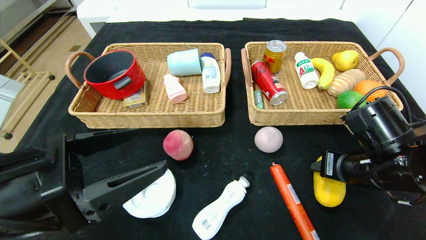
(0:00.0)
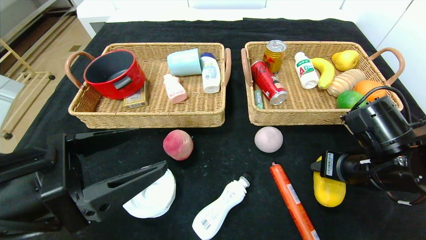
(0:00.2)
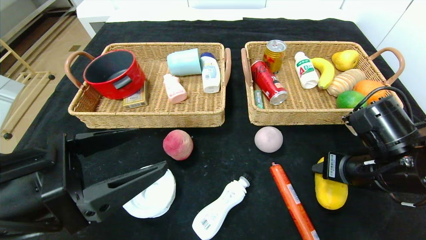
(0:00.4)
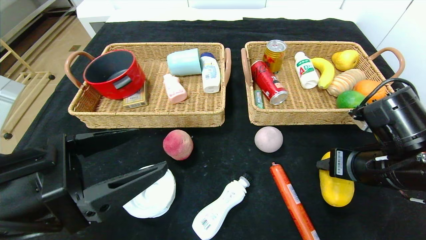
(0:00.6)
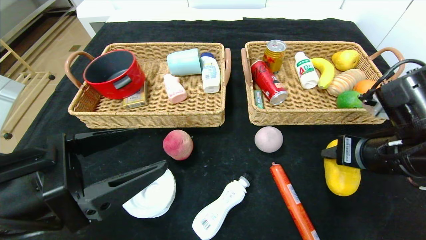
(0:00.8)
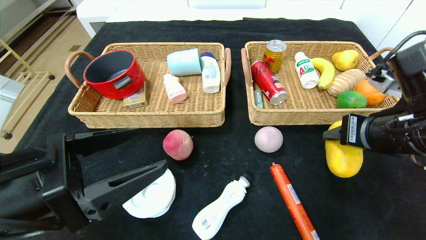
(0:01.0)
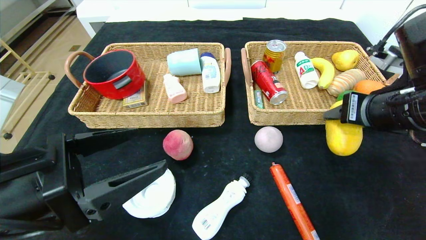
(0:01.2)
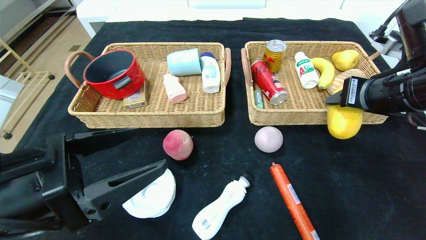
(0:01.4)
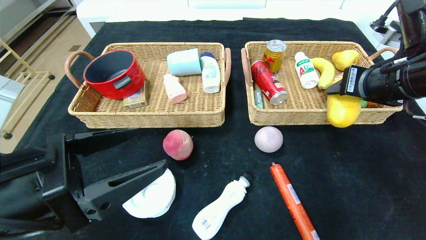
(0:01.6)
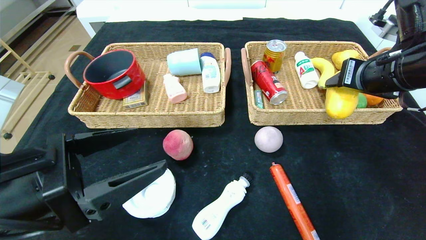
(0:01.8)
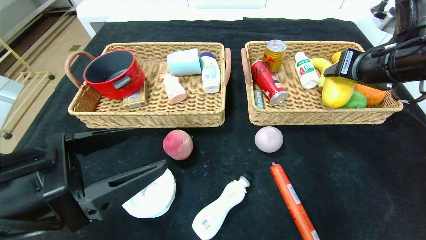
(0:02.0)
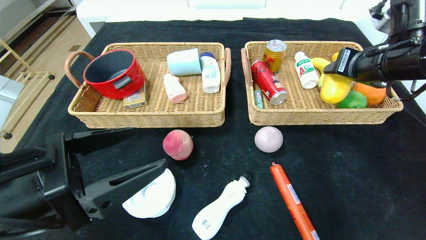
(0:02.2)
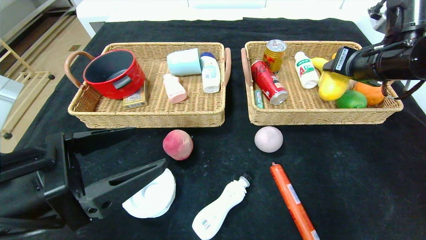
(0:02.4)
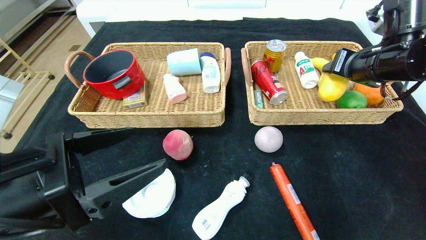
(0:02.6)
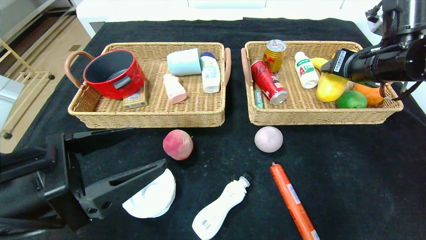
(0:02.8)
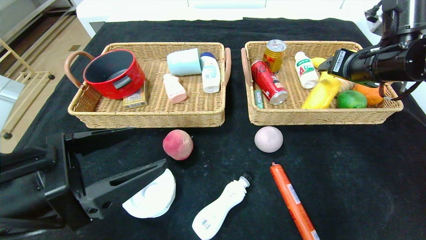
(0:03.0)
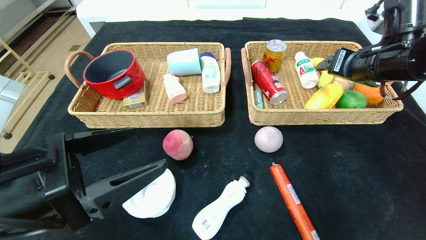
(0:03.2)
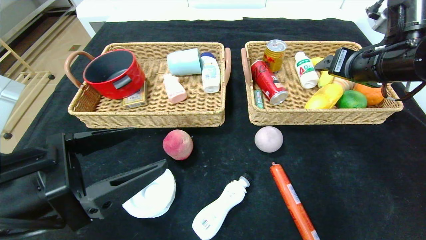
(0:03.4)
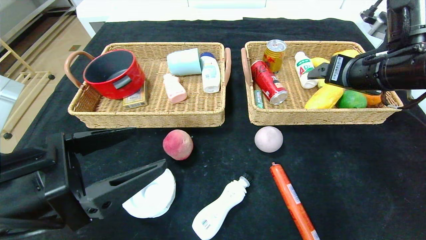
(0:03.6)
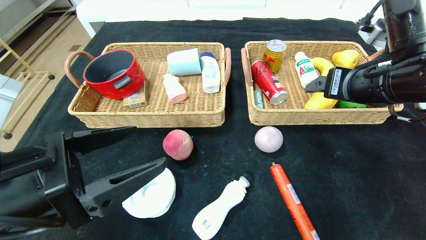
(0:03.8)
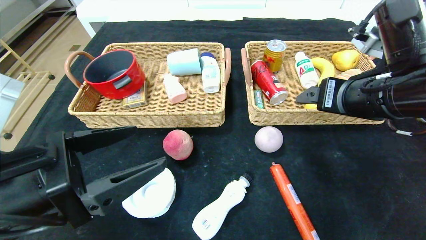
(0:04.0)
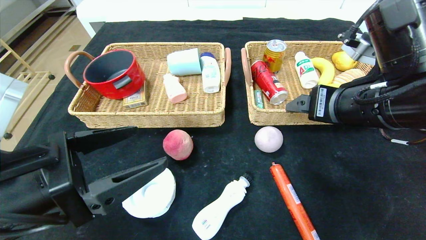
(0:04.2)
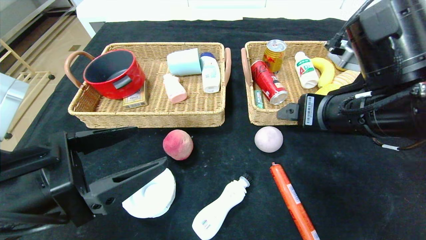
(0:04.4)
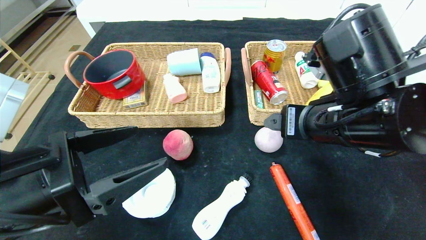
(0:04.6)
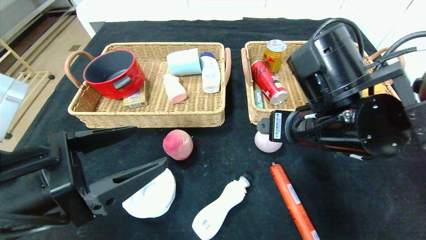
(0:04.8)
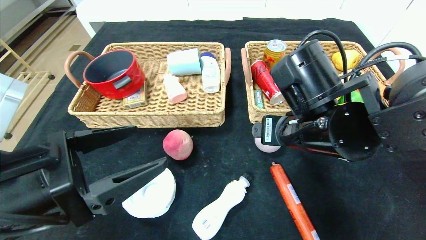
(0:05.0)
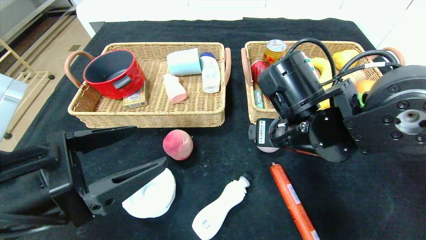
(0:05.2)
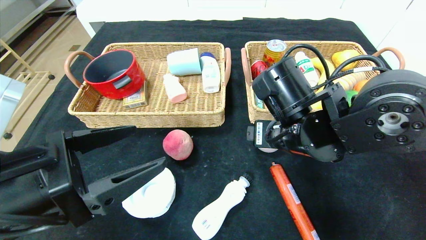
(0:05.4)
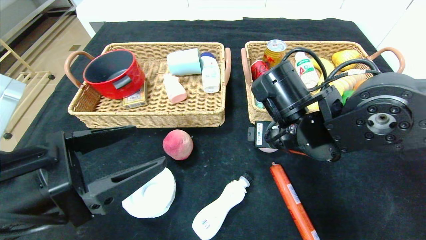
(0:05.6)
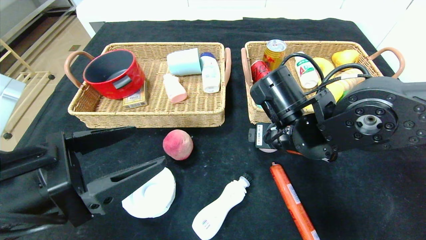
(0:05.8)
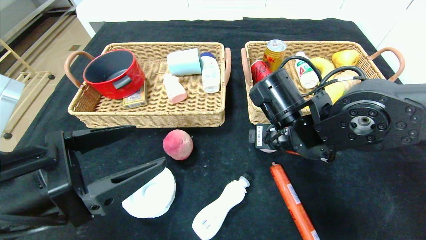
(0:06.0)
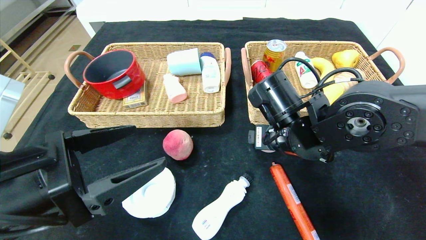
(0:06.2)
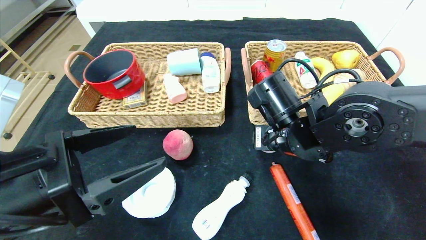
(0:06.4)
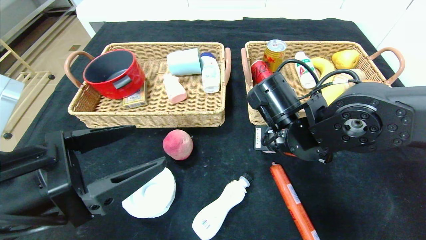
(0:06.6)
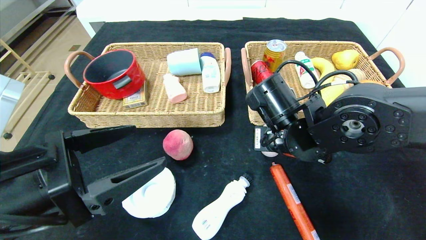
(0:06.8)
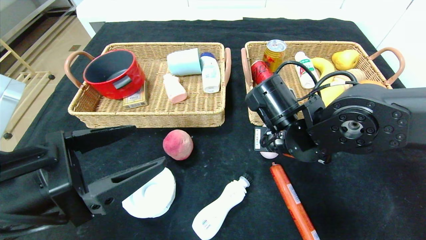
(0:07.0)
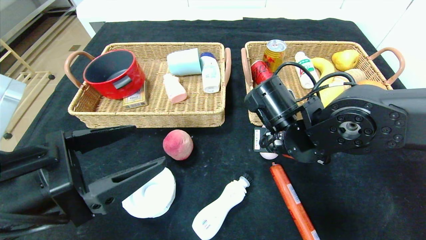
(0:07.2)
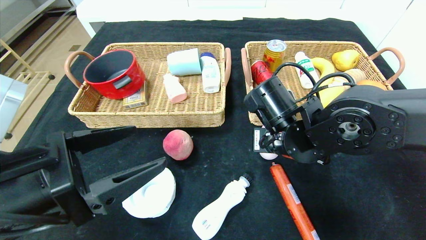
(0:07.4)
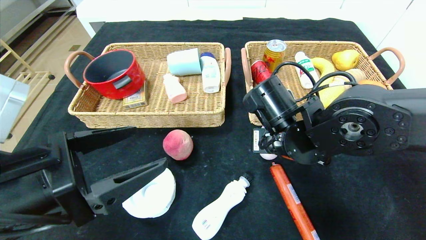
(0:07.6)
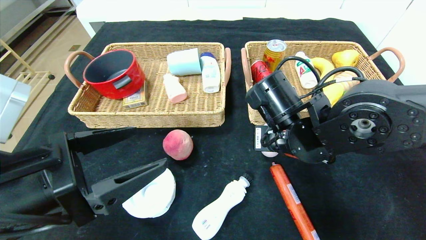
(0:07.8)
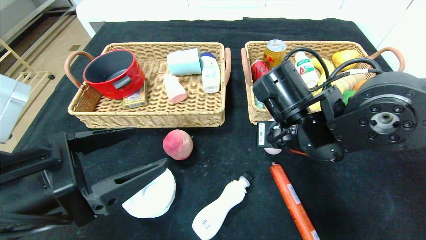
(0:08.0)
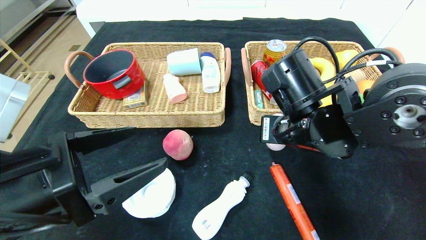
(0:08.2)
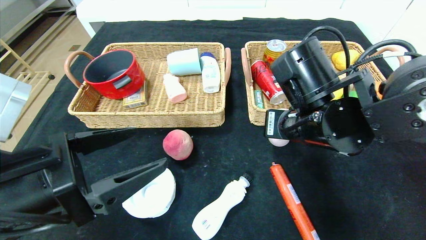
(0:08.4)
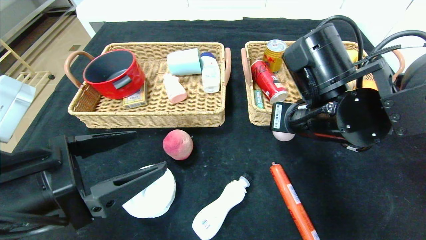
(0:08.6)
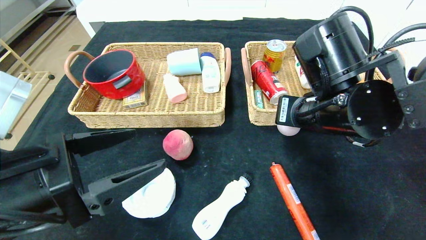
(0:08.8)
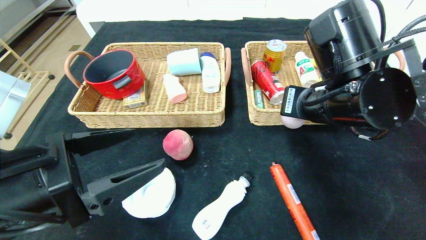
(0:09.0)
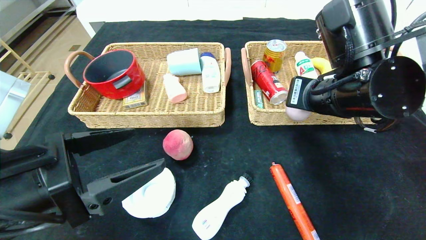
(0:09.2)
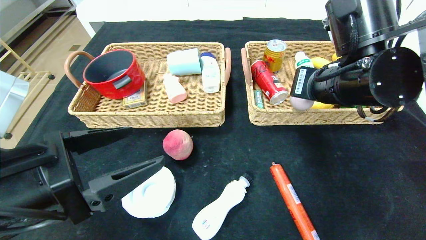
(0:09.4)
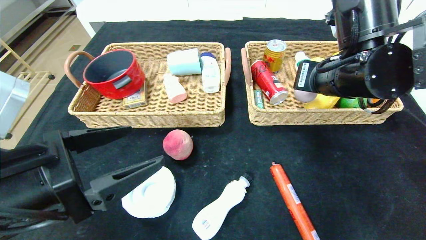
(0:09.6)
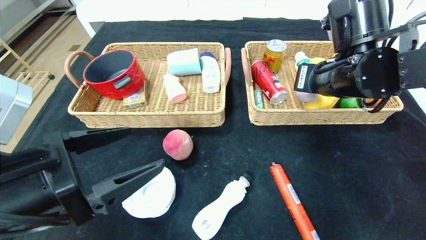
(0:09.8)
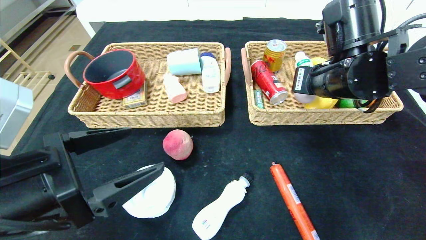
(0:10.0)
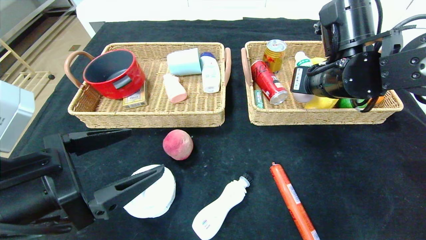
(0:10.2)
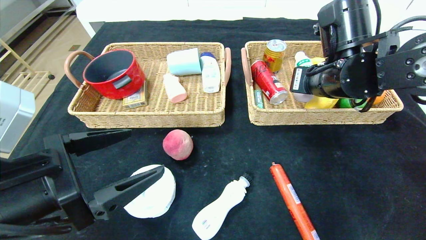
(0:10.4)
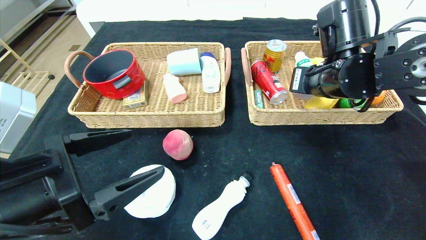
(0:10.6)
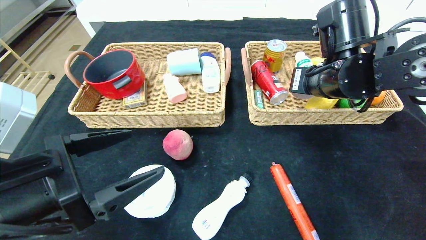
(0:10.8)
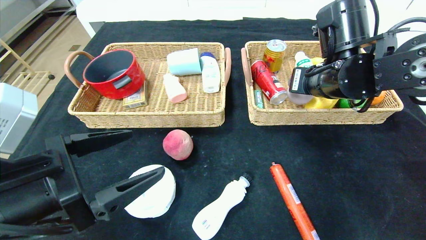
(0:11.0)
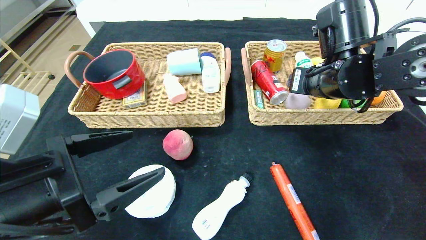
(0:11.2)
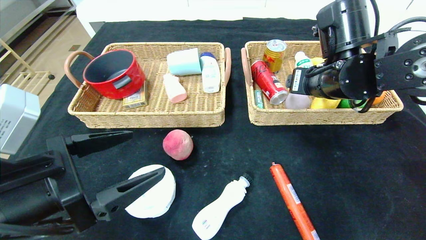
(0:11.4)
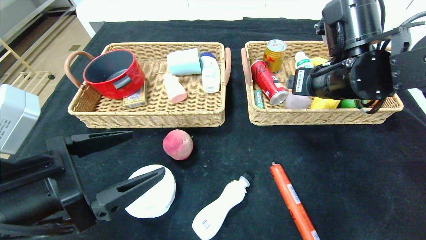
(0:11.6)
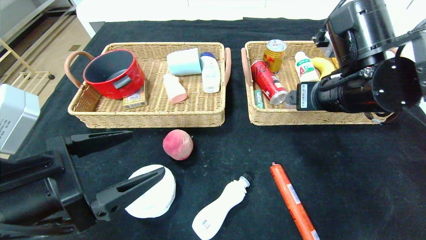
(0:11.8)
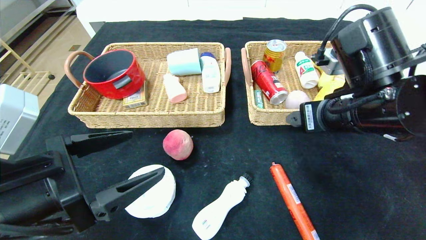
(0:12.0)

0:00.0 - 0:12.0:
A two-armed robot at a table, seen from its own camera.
Step, 0:00.0 - 0:03.0: Grasp the mango and put it in the right basket.
Step, 0:03.2 - 0:11.2: Grasp the peach and put it in the right basket.
0:00.0 - 0:01.6: The right gripper moves upward, roughly 15 cm.
0:01.6 - 0:03.0: The right gripper shifts about 5 cm forward.
0:03.0 - 0:04.4: The right gripper shifts about 15 cm backward and to the left.
0:04.4 - 0:06.0: The right gripper travels downward, to the left and forward by about 10 cm.
0:06.0 - 0:07.6: The right gripper closes.
0:07.6 - 0:09.0: The right gripper travels upward by some 10 cm.
0:09.0 - 0:10.4: The right gripper shifts about 5 cm forward.
0:10.4 - 0:12.0: The right gripper travels backward by some 5 cm, and opens.

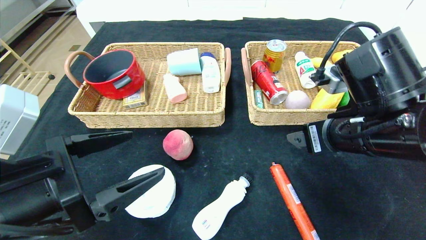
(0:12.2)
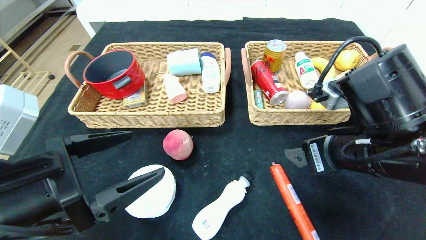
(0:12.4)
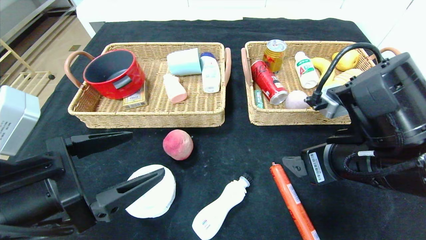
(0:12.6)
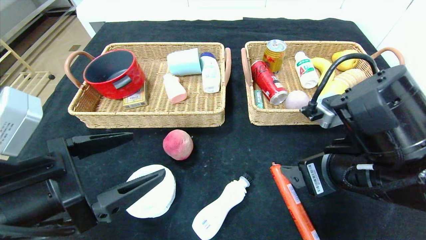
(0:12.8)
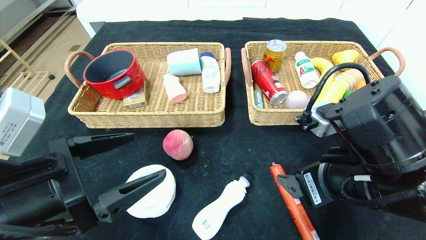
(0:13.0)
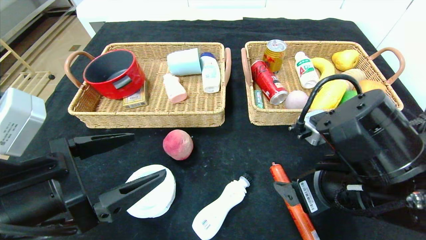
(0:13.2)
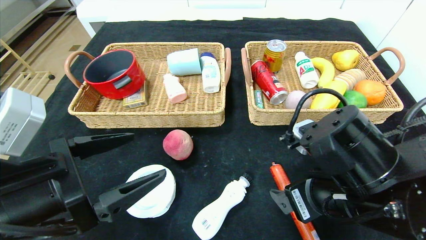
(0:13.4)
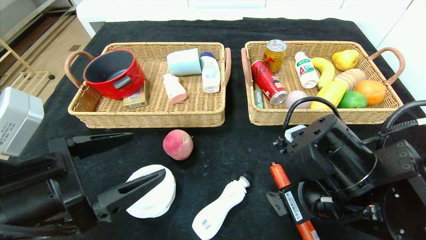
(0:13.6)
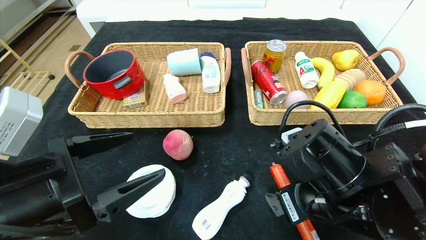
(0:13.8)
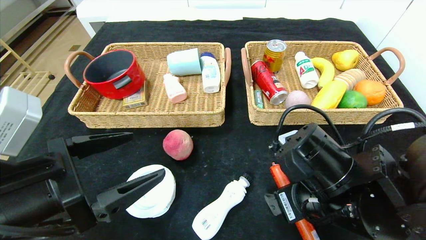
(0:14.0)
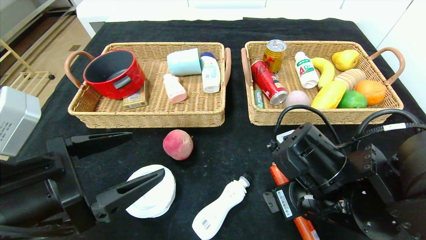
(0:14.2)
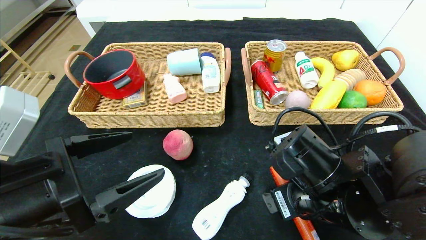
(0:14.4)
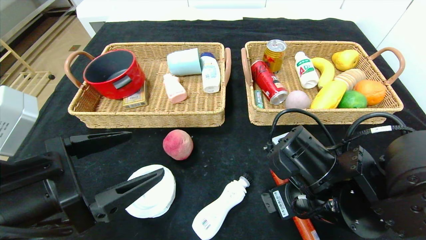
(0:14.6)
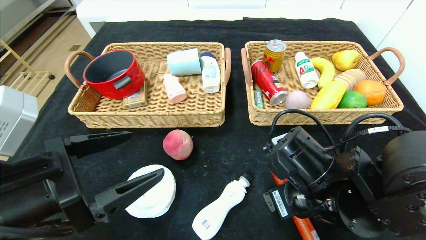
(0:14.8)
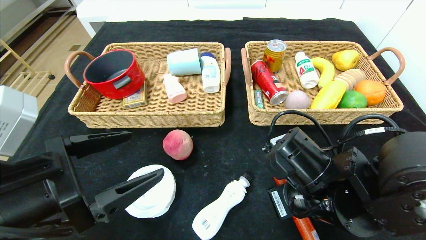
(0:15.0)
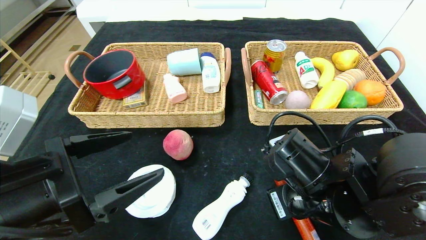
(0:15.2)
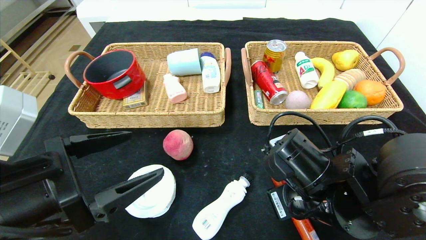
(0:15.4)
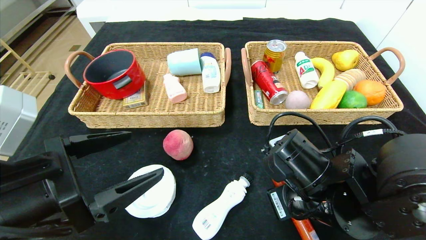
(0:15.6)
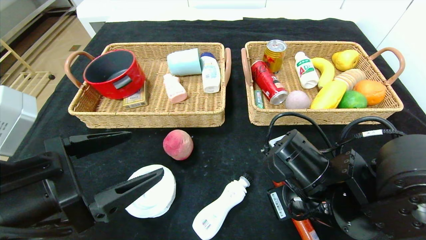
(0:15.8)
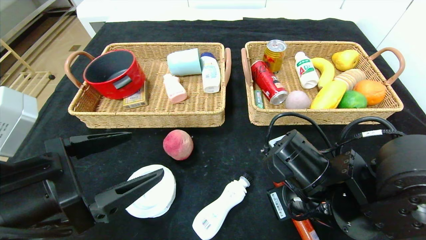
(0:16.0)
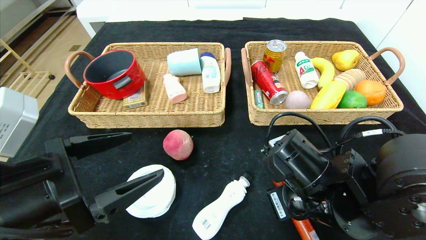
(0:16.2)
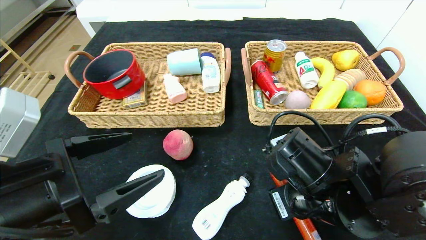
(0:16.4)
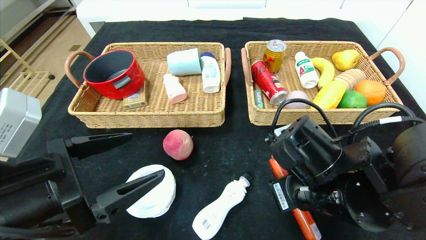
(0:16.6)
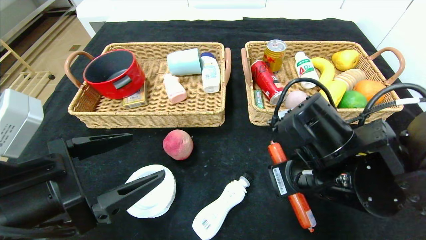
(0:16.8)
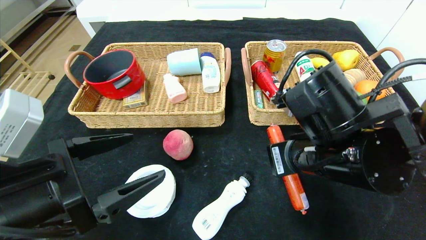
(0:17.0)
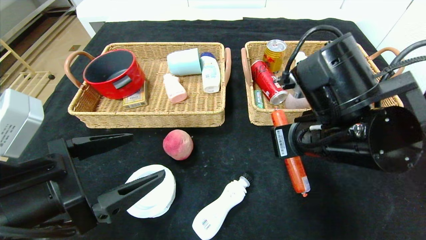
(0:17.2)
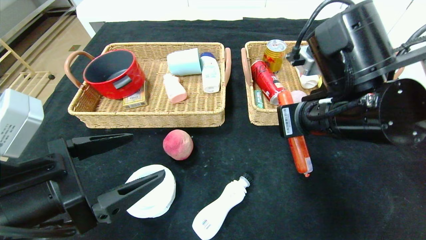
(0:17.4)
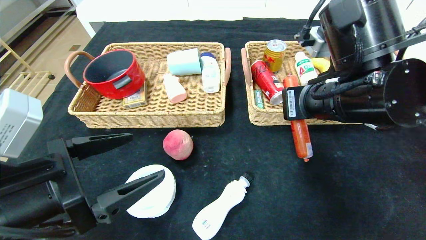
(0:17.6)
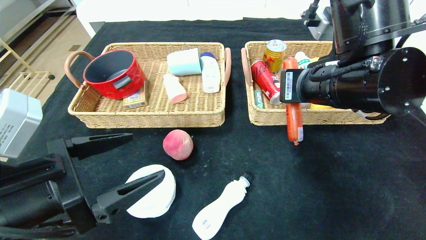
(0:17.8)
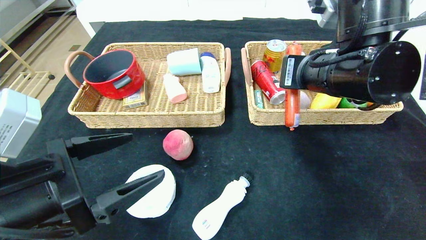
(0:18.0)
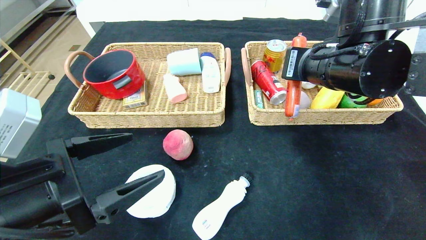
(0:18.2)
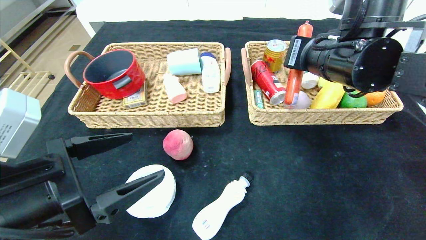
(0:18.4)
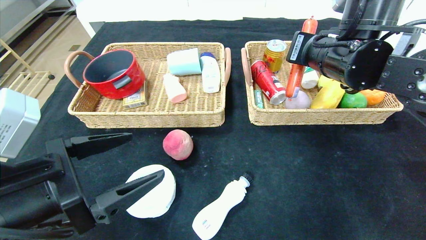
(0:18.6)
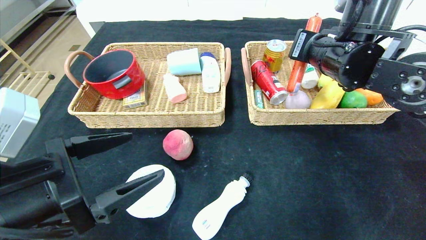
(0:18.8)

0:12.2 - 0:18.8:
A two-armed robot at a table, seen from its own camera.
0:12.2 - 0:13.8: The right gripper goes approximately 5 cm downward.
0:13.8 - 0:15.4: The right gripper closes its fingers.
0:15.4 - 0:17.2: The right gripper is displaced upward by some 10 cm.
0:17.2 - 0:18.8: The right gripper heads forward and upward, covering roughly 15 cm.
